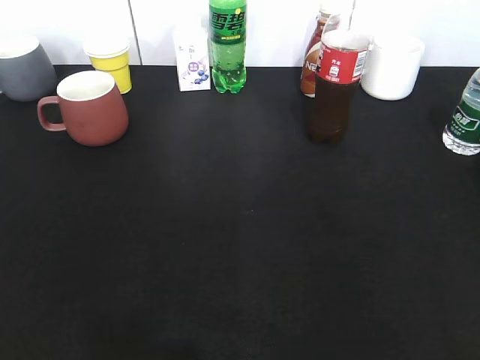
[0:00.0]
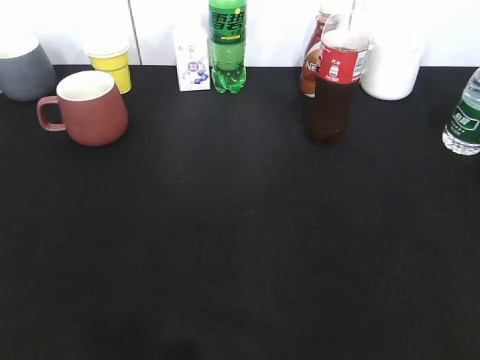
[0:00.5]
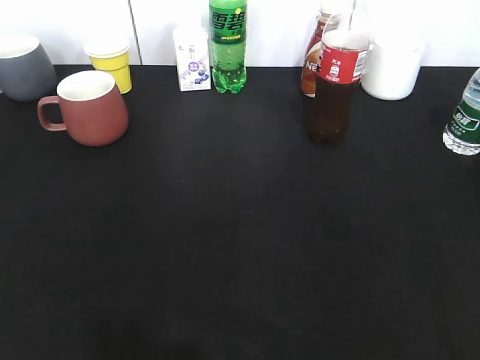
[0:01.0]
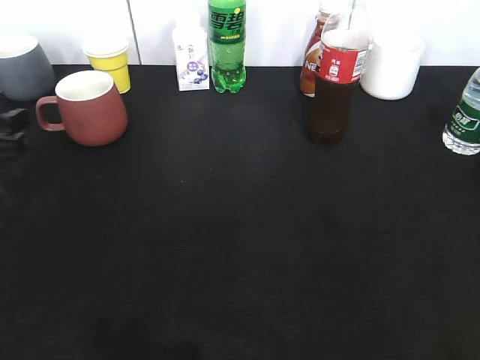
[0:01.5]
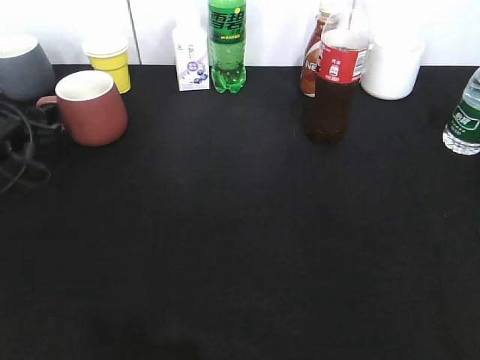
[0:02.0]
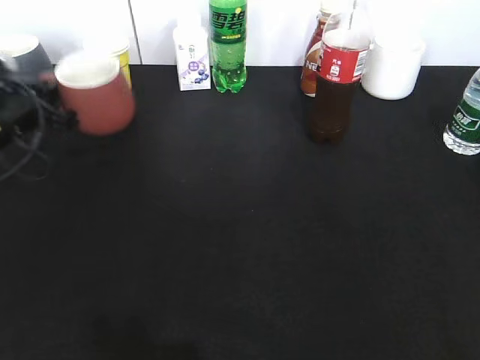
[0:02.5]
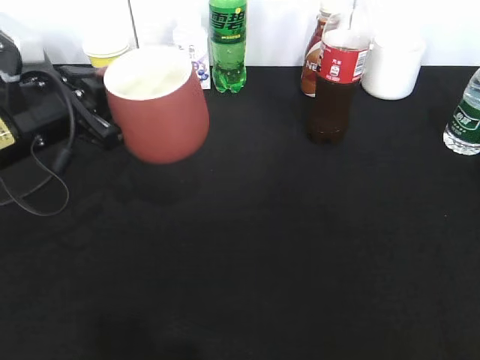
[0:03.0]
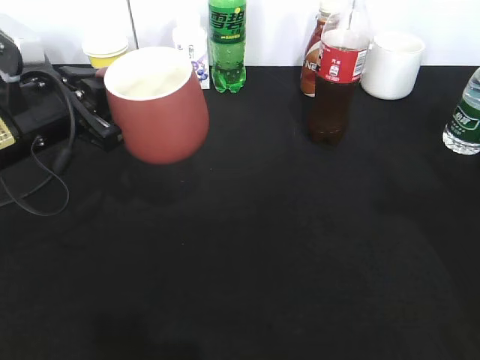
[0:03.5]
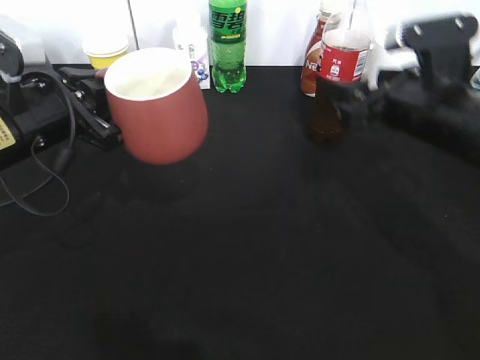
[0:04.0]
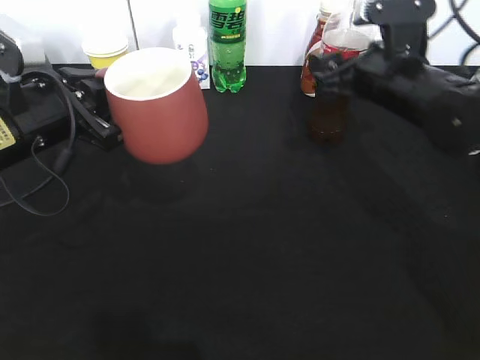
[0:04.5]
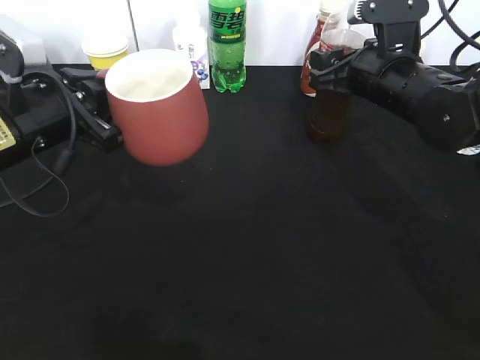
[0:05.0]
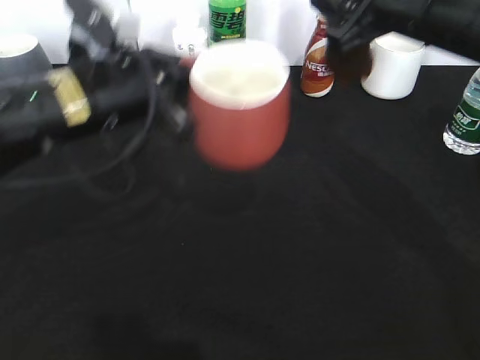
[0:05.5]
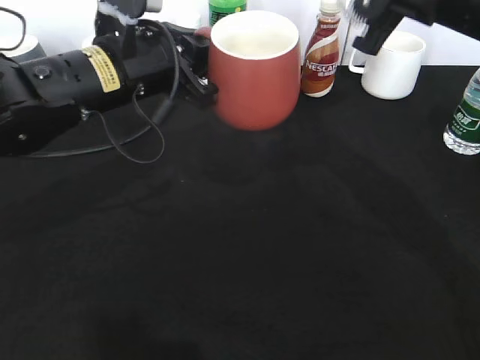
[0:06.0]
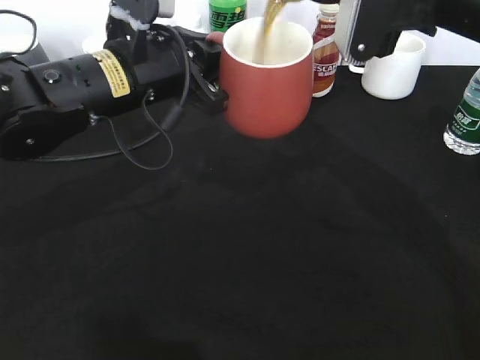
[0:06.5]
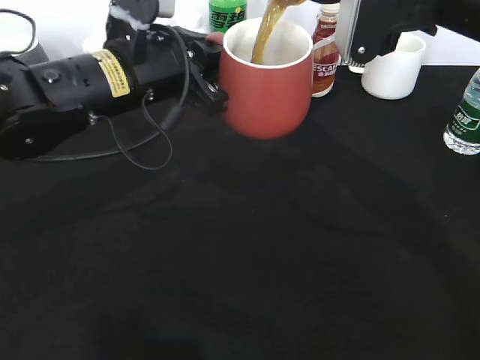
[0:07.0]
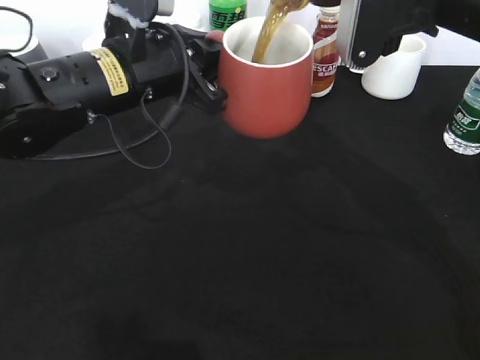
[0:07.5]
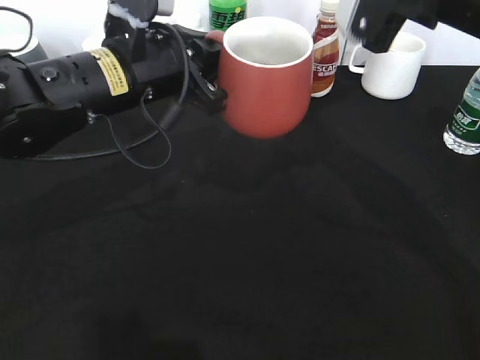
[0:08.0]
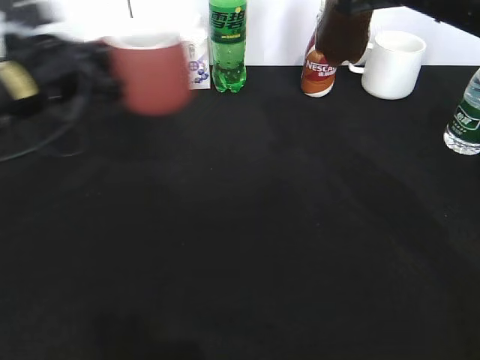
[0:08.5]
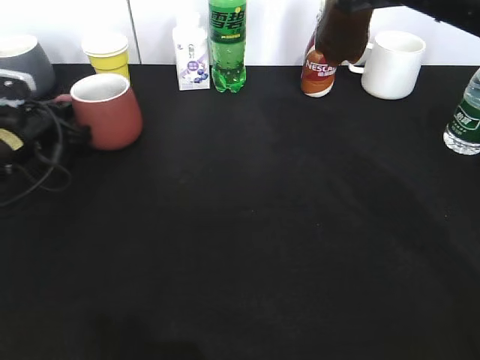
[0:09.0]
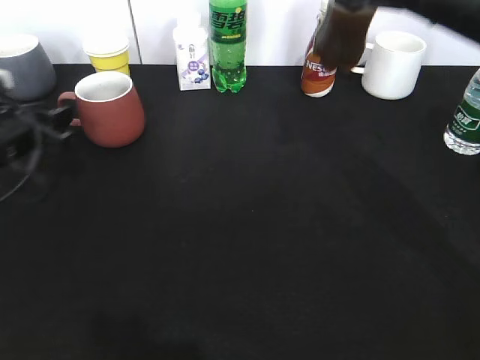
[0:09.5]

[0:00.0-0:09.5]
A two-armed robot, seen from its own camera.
Step, 0:01.0 to 0:02.0: Grasp the red cup with left gripper.
Step, 0:02.5 to 0:03.5: Lift the red cup with left gripper.
Step, 0:04.0 to 0:05.0: Grasp the bottle with cola with right gripper.
Step, 0:05.5 to 0:07.5: Pour the cola from bottle to cup with right gripper.
0:00.0 to 0:02.0: The left gripper moves forward and downward, roughly 40 cm, and opens its fingers.
0:02.0 to 0:04.0: The left gripper shifts about 15 cm to the right, upward and backward, and closes up, while the right gripper moves forward and to the left, approximately 35 cm, and opens up.
0:04.0 to 0:05.5: The right gripper goes some 10 cm upward, and closes its fingers, while the left gripper travels to the right by approximately 10 cm.
0:07.5 to 0:09.5: The left gripper shifts about 20 cm to the left and downward, and opens.

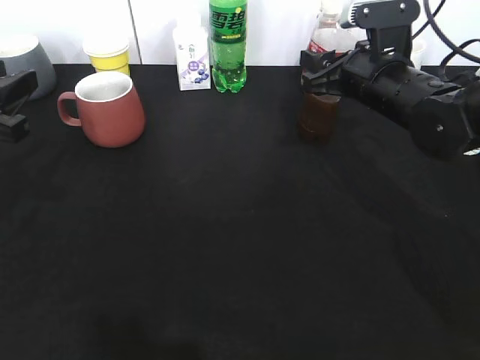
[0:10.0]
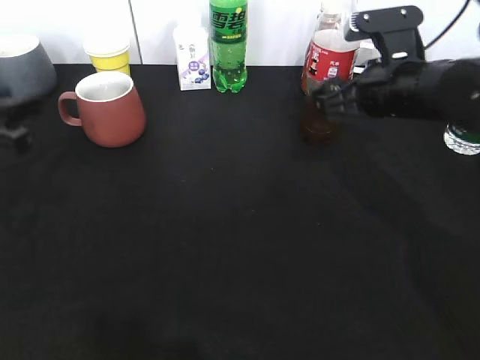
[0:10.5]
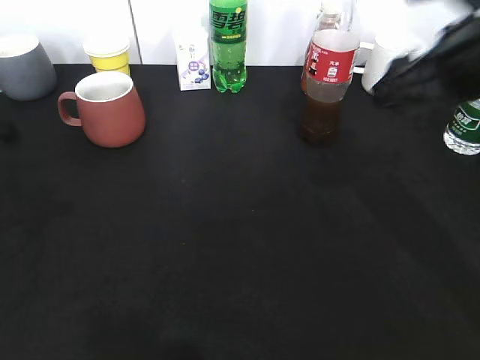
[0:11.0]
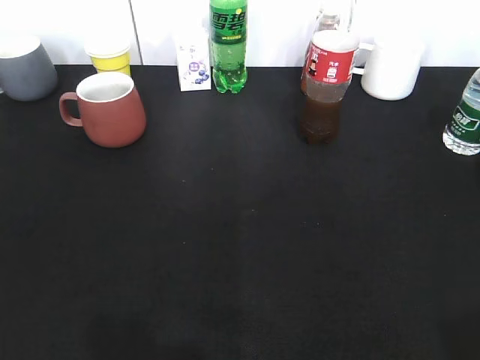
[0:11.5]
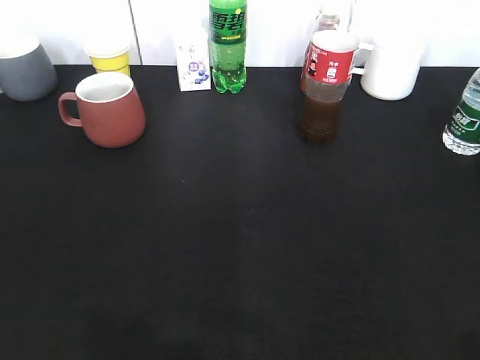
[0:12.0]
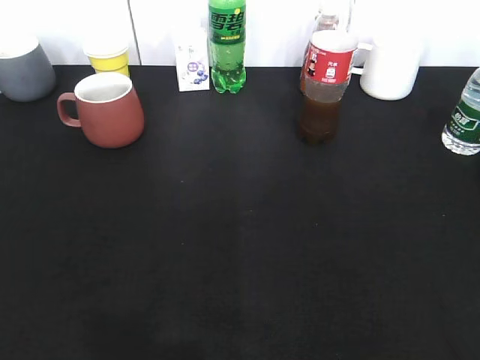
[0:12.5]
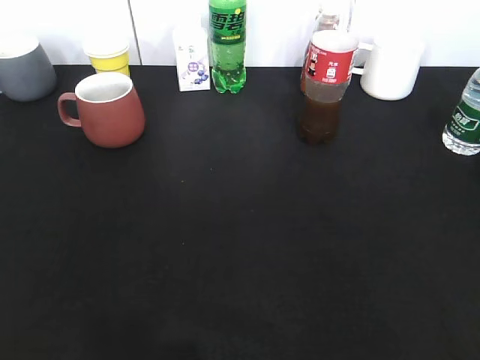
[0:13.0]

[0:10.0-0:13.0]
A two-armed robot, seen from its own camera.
0:10.0 to 0:11.5: Both grippers move backward, roughly 30 cm. The right gripper opens and closes again.

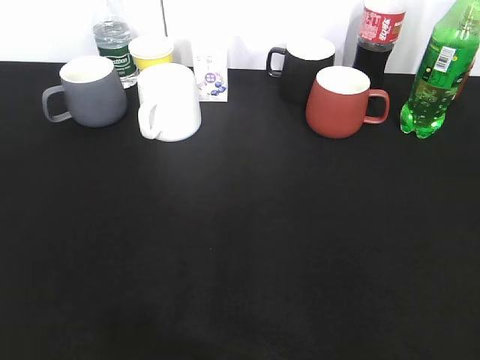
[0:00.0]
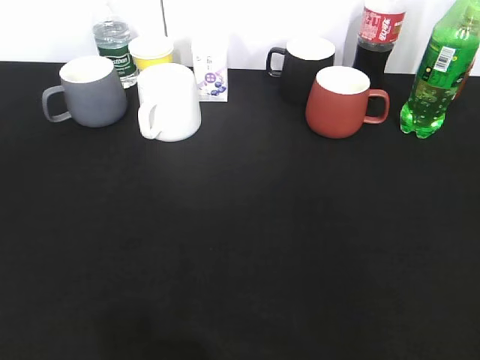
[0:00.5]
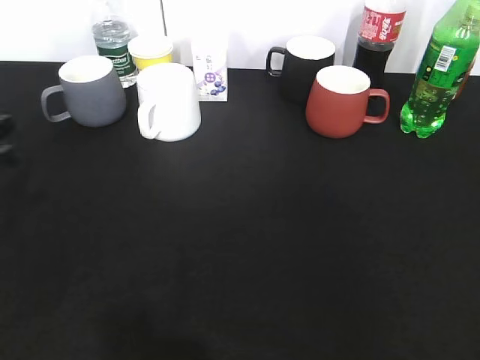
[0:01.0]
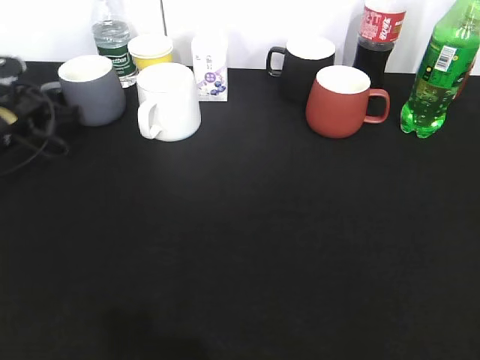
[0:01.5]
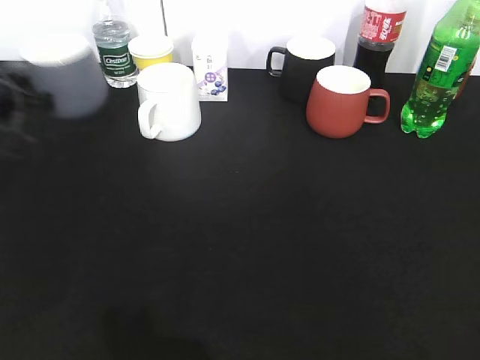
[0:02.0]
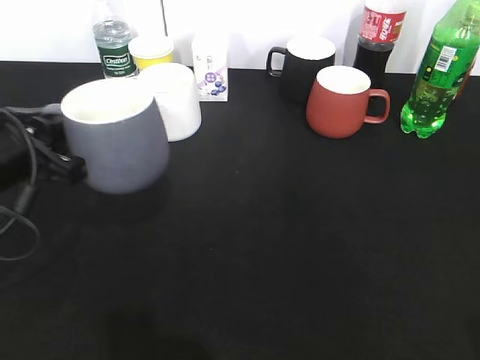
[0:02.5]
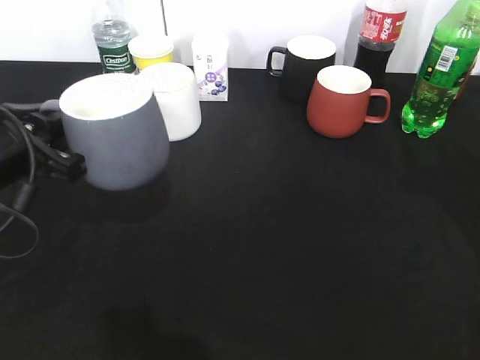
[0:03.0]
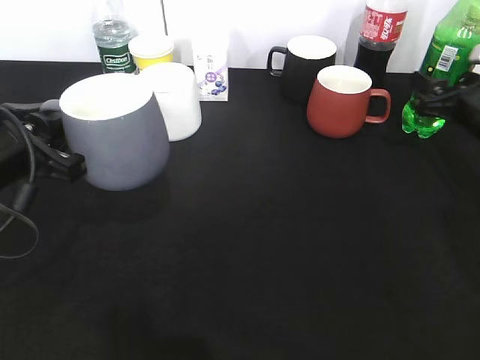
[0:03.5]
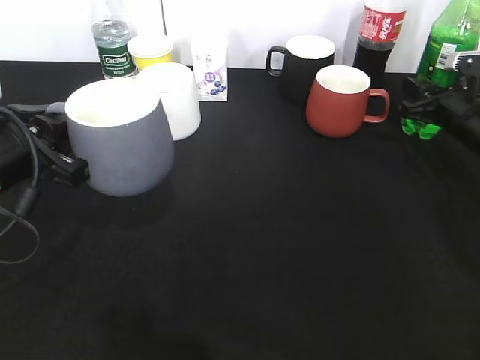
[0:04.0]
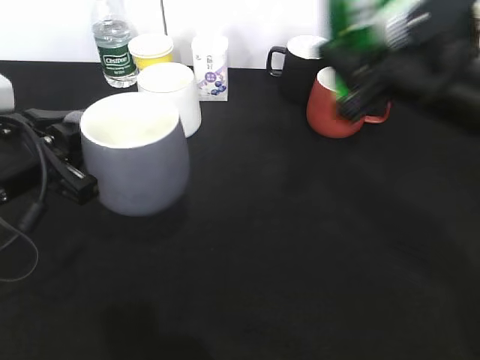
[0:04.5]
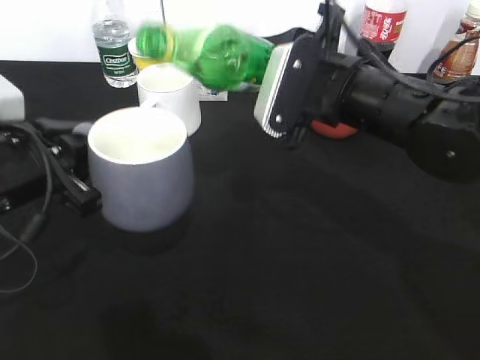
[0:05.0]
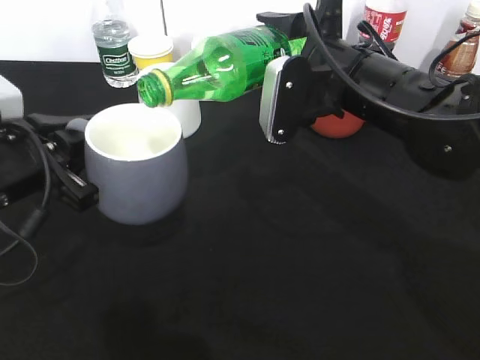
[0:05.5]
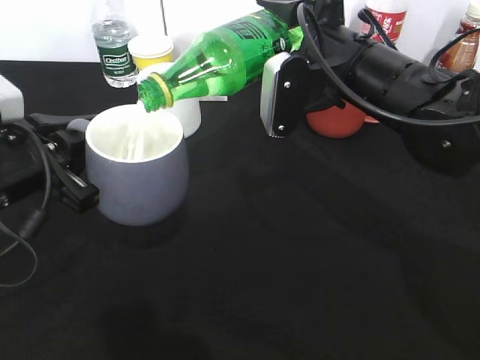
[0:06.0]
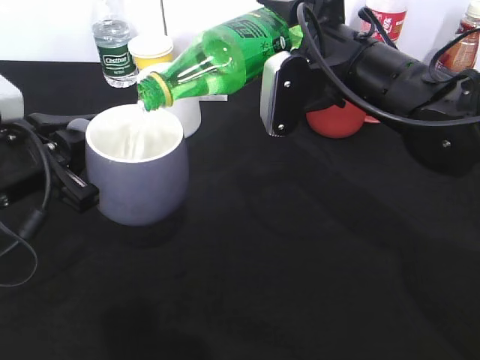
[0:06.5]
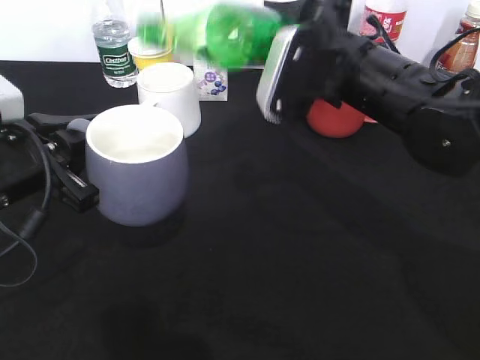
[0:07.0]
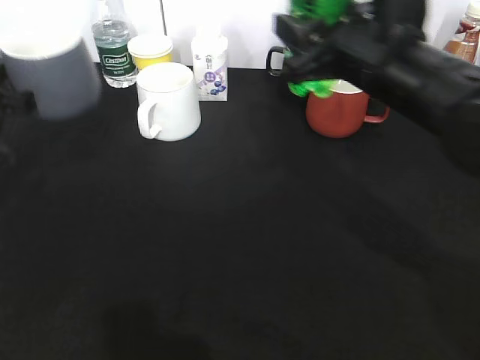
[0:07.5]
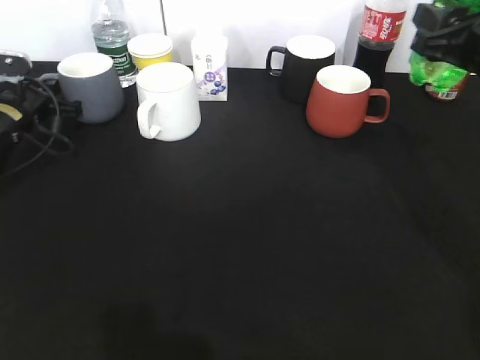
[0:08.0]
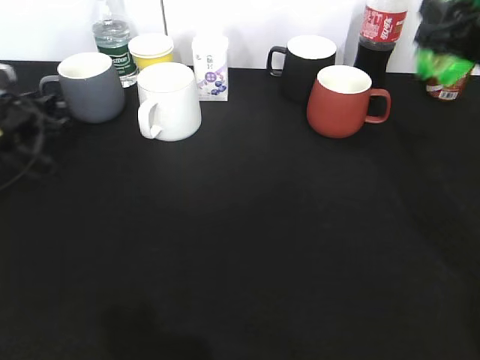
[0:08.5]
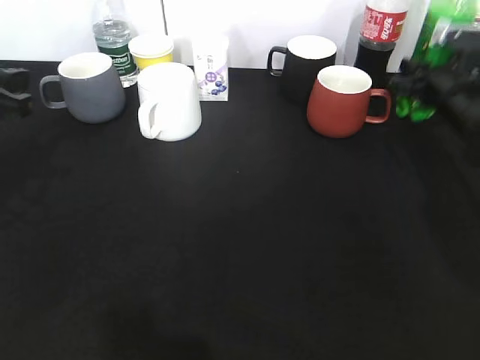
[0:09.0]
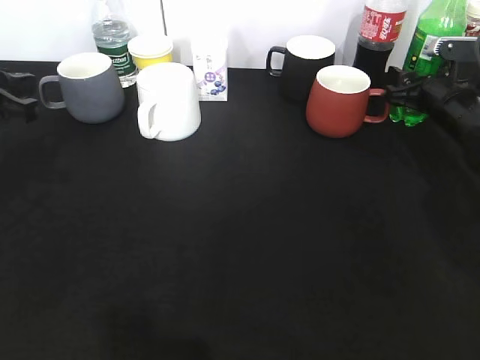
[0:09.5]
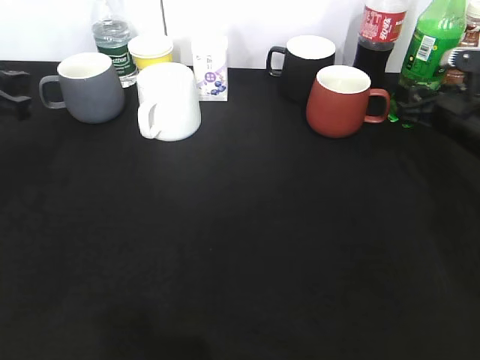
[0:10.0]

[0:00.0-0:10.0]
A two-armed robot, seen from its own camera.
Step, 0:00.0 to 0:01.5: Grasp the grey cup with left gripper.
Step, 0:02.0 to 0:02.5: Lift the grey cup with left gripper.
Step, 0:03.0 to 0:03.5: Grasp the bottle with sprite with right gripper.
Step, 0:04.0 to 0:06.5: Pour the sprite from bottle to cup with right gripper.
Step, 0:07.0 to 0:10.0: Place the sprite bottle on the table with right gripper.
0:00.0 to 0:02.0: The left gripper shifts about 35 cm forward, and closes its fingers.
0:02.0 to 0:04.0: The right gripper is displaced forward and downward by some 40 cm, and closes. Meanwhile the left gripper shifts some 15 cm backward and to the right.
0:04.0 to 0:06.0: The right gripper is displaced to the left, upward and backward by about 25 cm.
0:06.0 to 0:08.0: The right gripper travels to the right by approximately 15 cm; the left gripper shifts roughly 25 cm forward and to the left.
0:08.0 to 0:10.0: The right gripper travels downward and forward by some 15 cm, and opens up. Meanwhile the left gripper heads backward and upward, covering some 20 cm, and opens its fingers.

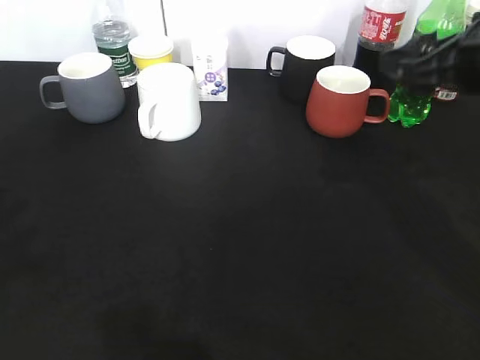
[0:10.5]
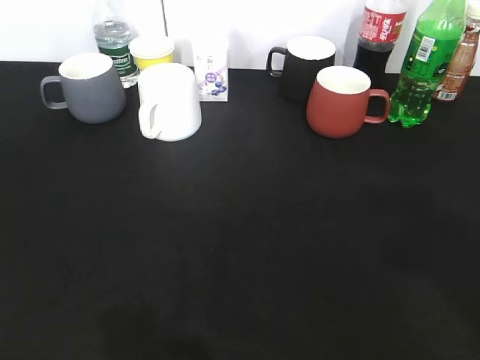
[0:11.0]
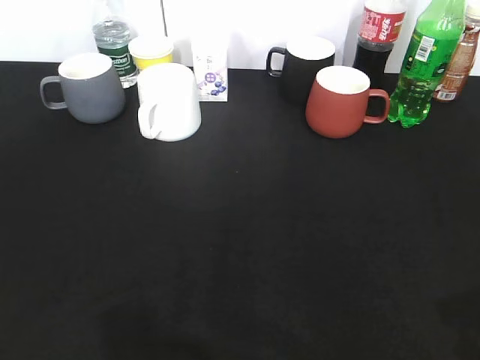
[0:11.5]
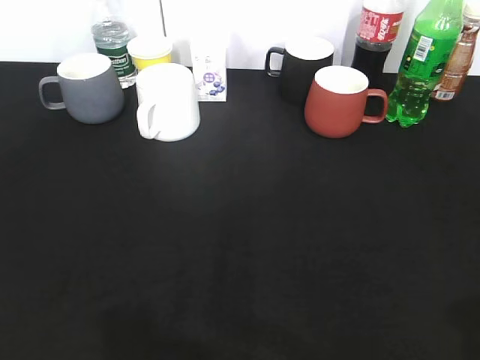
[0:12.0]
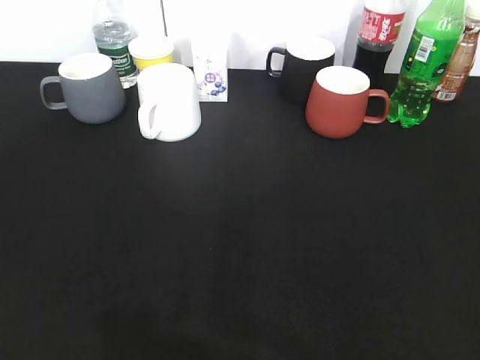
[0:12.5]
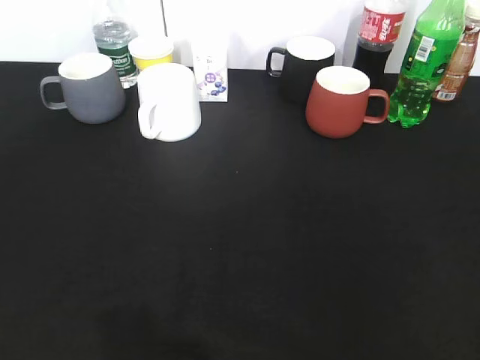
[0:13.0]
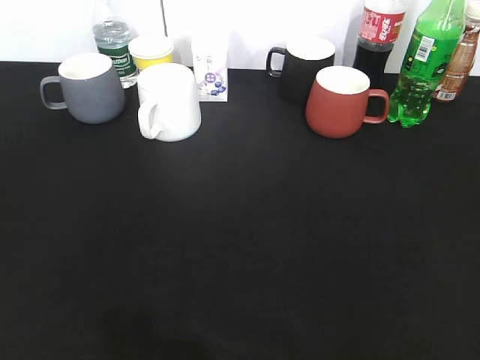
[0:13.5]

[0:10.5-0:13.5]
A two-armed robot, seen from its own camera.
0:10.5 to 0:12.0: The left gripper shifts some 10 cm backward, while the right gripper moves backward, some 25 cm.
